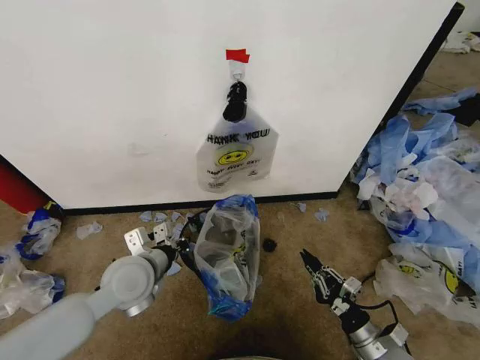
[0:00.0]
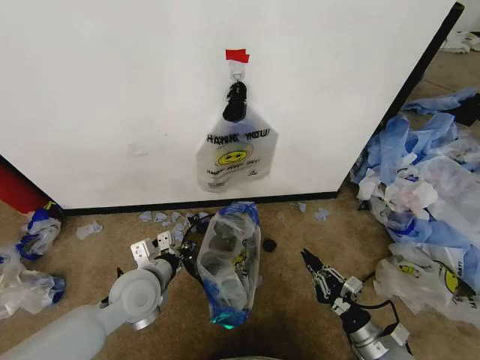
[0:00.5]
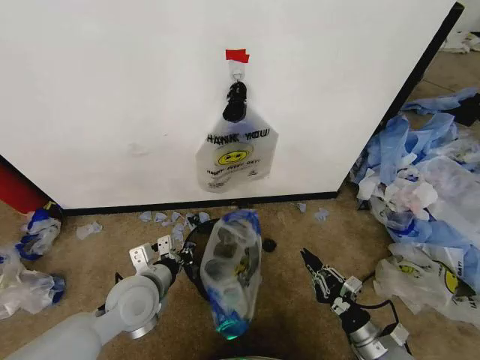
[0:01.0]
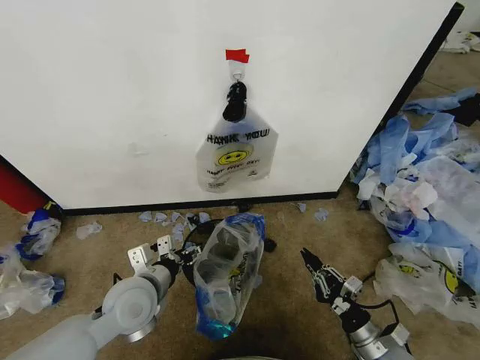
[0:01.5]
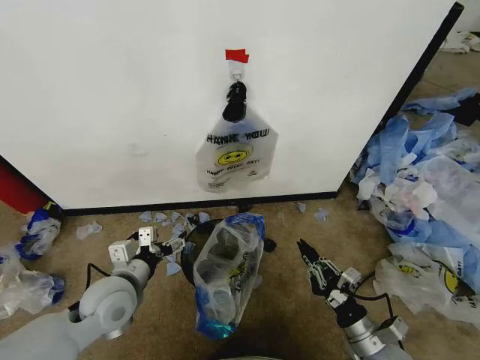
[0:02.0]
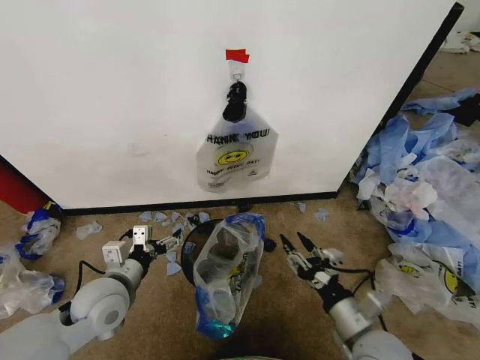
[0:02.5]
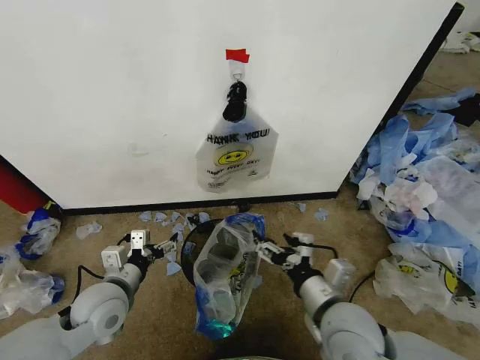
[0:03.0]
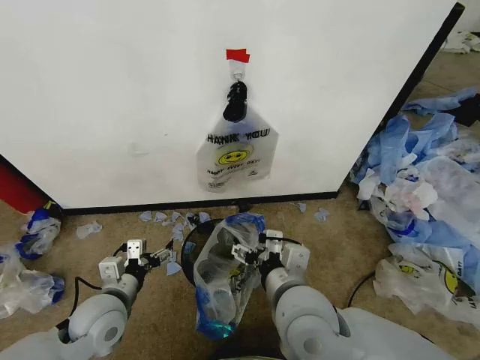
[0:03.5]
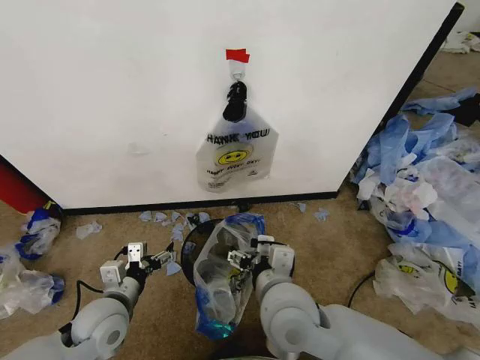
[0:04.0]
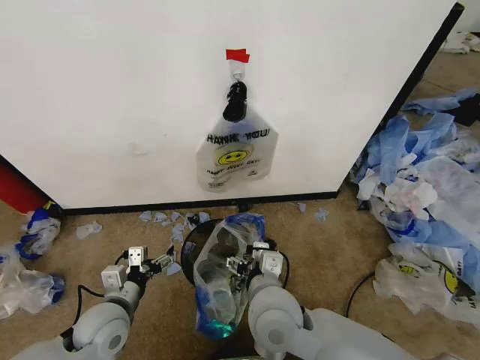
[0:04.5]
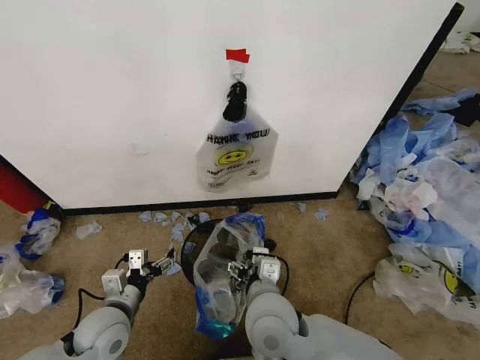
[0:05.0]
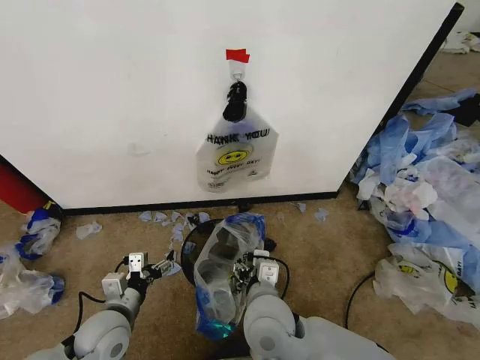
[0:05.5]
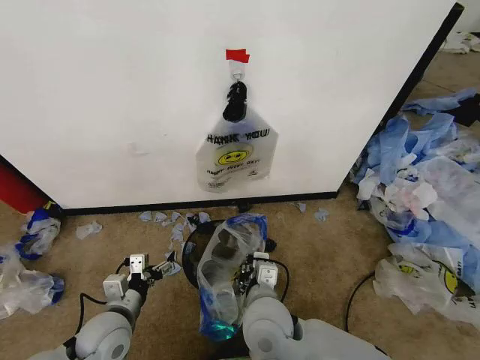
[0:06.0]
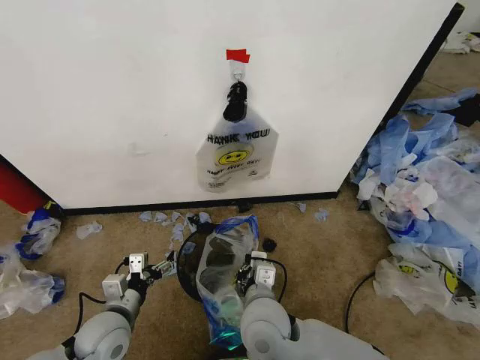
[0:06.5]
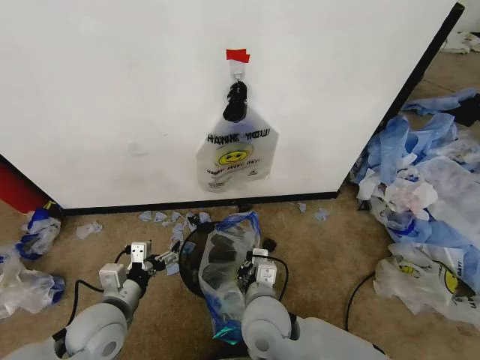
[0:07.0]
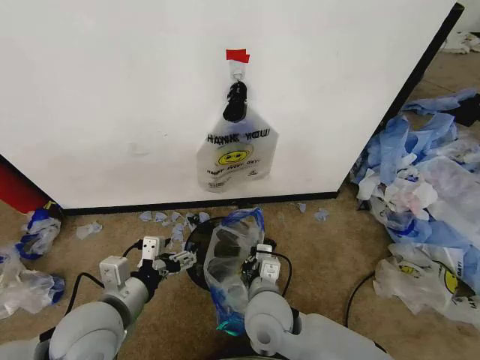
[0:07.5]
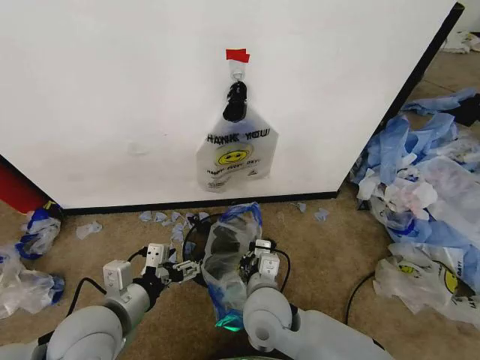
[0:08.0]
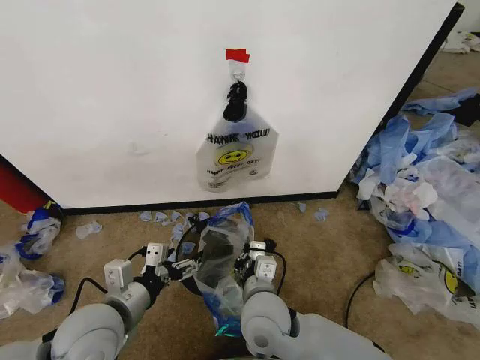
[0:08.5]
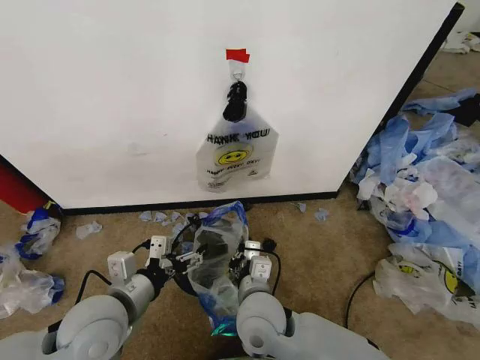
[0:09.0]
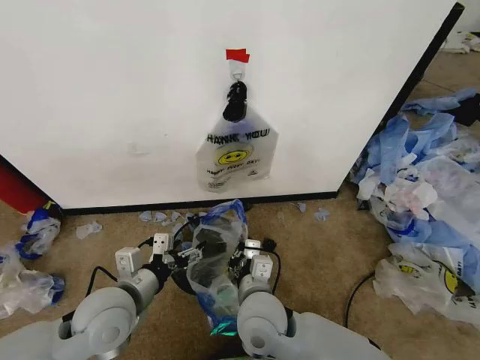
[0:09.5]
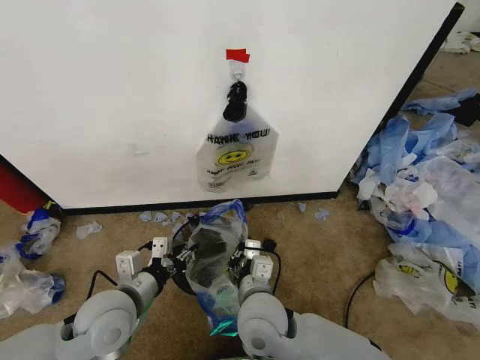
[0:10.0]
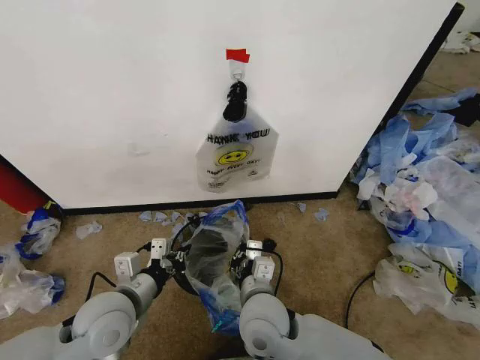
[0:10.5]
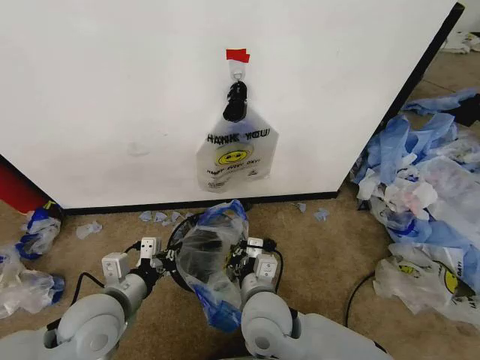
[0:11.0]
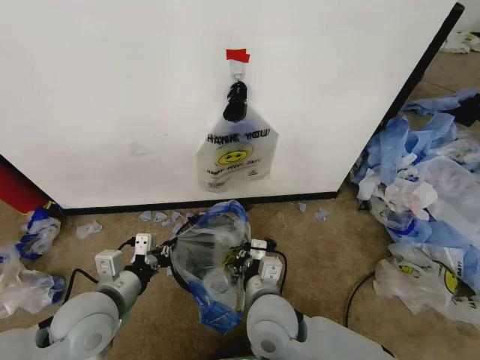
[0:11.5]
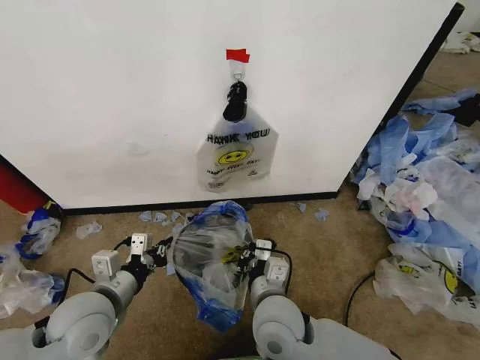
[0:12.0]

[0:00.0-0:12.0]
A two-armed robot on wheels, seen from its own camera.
Task of the whole recording: Pick up the garbage bag from the wall and place it over the trash bin.
0:00.0 to 0:02.0: The left gripper moves some 5 cm, and opens up.
0:02.0 to 0:04.0: The left gripper changes place by approximately 5 cm. The right gripper goes some 25 cm to the left and upward, and opens.
0:04.0 to 0:06.0: The right gripper travels downward by roughly 5 cm, and closes its fingers.
0:06.0 to 0:08.0: The left gripper is displaced upward by approximately 15 cm.
0:08.0 to 0:10.0: The left gripper shifts by some 5 cm, and closes its fingers.
0:10.0 to 0:12.0: The left gripper closes up.

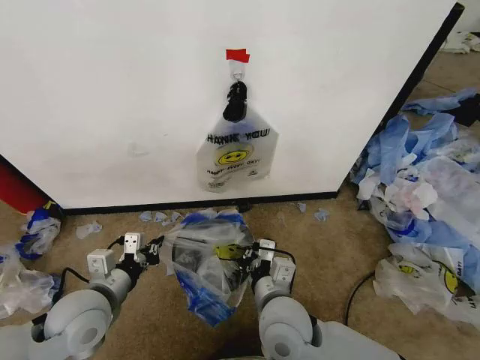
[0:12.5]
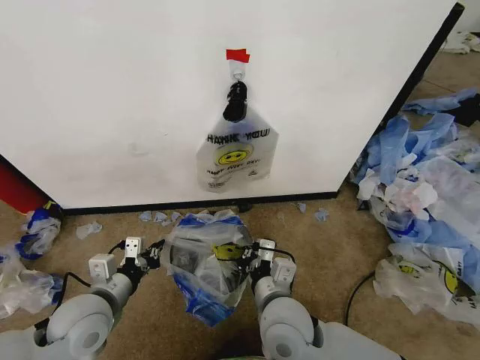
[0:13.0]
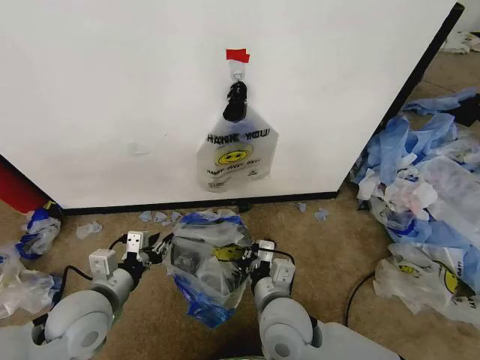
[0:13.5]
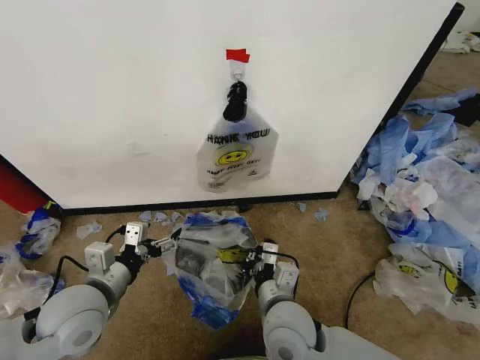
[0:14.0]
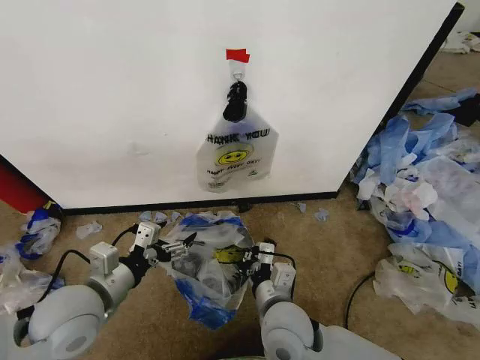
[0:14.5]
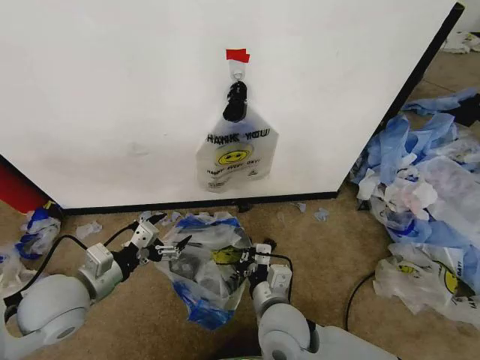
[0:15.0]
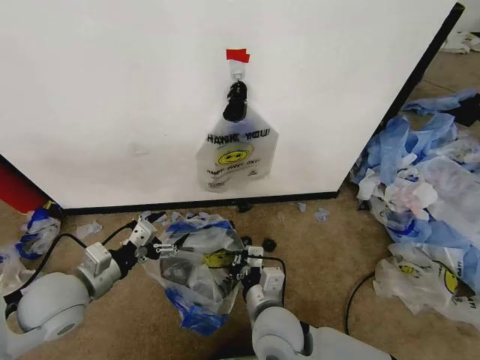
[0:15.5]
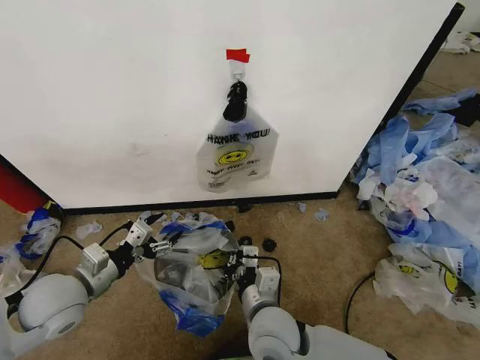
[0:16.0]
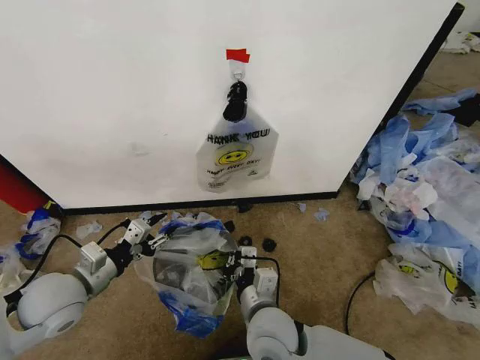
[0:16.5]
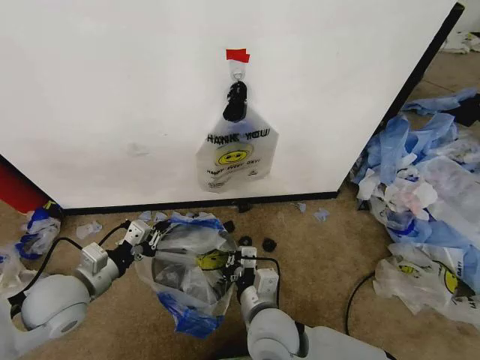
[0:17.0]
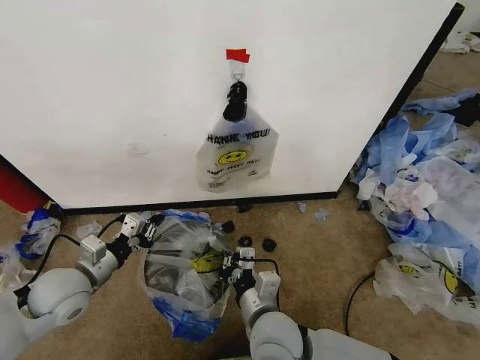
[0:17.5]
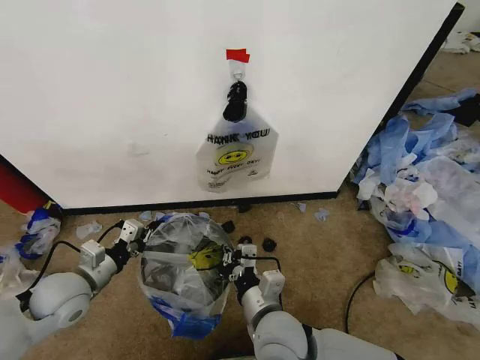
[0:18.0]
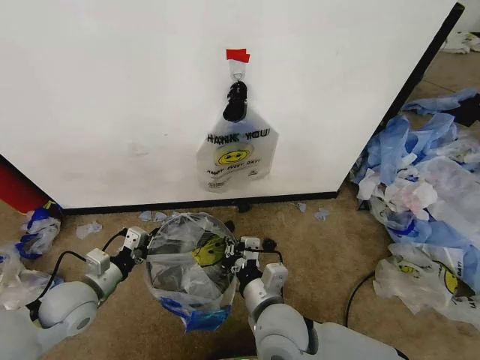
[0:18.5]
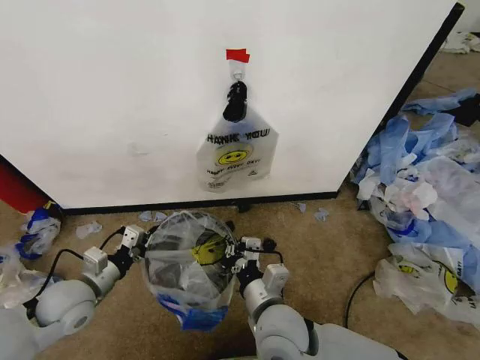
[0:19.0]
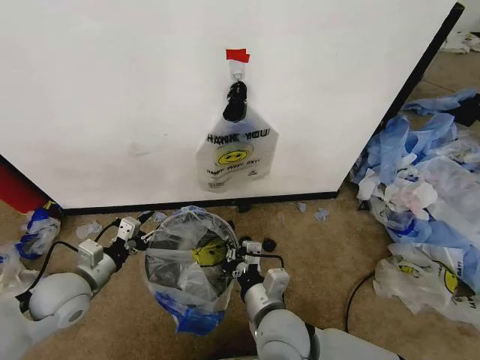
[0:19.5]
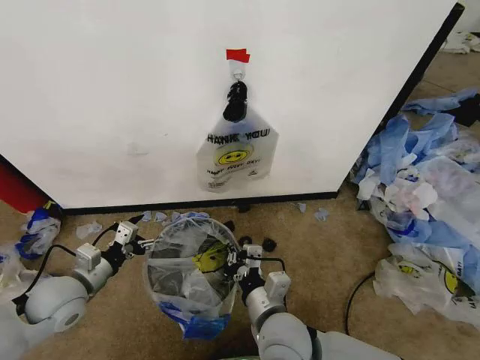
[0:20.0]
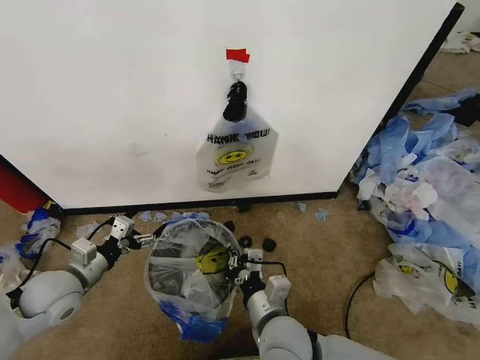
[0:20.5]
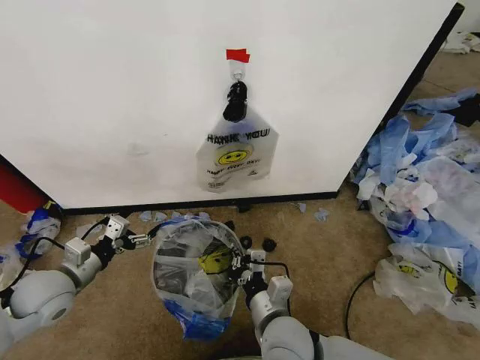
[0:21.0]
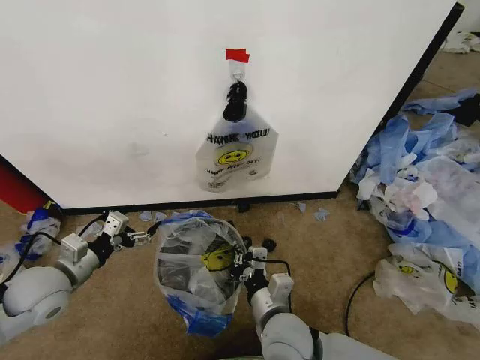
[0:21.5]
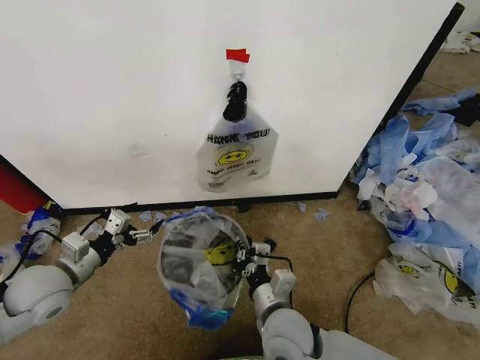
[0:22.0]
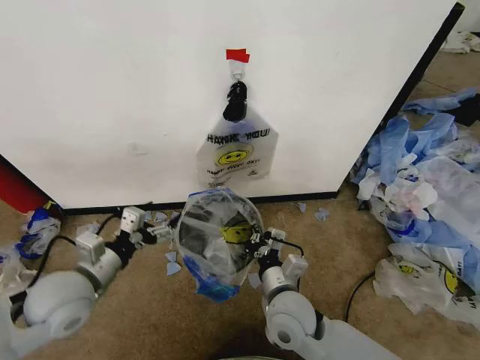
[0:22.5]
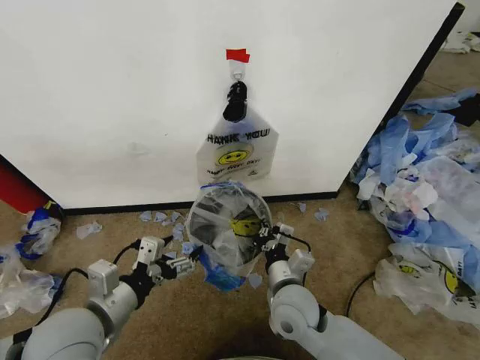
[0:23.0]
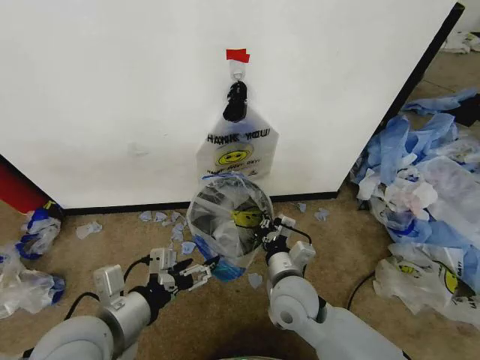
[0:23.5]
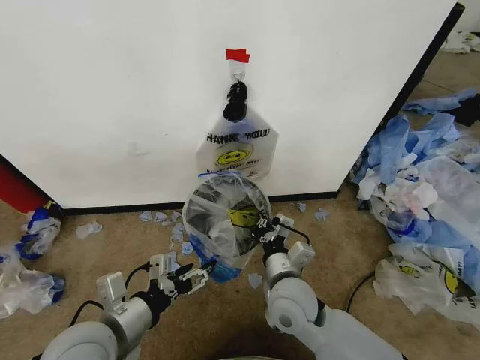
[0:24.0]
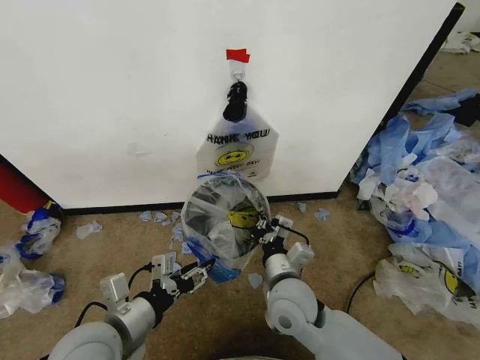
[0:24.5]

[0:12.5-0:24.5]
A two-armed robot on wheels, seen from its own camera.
Task of the whole recording: Pick up the garbage bag from the wall and place it over the trash bin.
0:12.5 to 0:14.5: The left gripper opens.
0:14.5 to 0:16.5: The left gripper moves to the left, approximately 5 cm, and closes up.
0:16.5 to 0:18.5: The left gripper goes some 5 cm downward, and closes.
0:18.5 to 0:20.5: The left gripper opens its fingers.
0:20.5 to 0:22.5: The left gripper shifts some 10 cm to the right and upward; the right gripper shifts by roughly 5 cm.
0:22.5 to 0:24.5: The left gripper is displaced backward and to the right by approximately 10 cm, and closes.

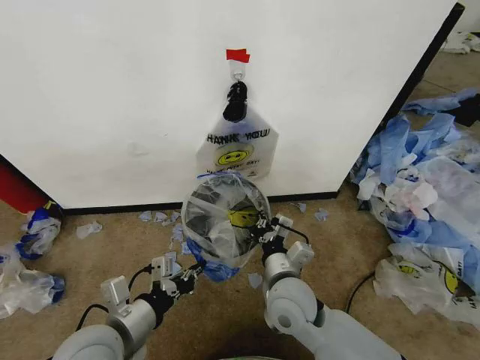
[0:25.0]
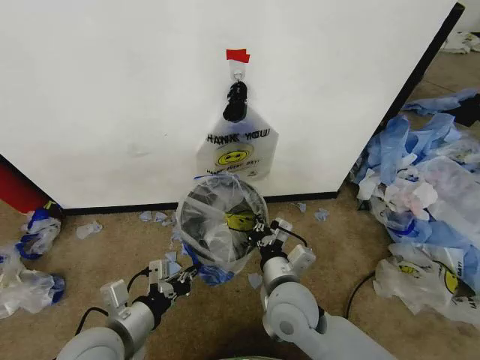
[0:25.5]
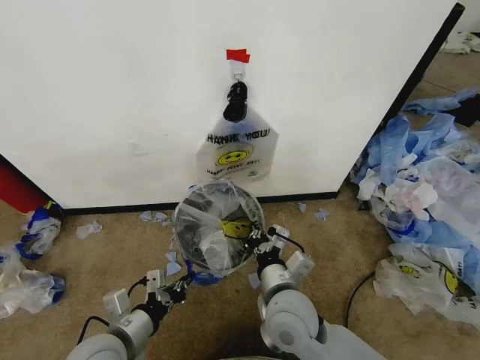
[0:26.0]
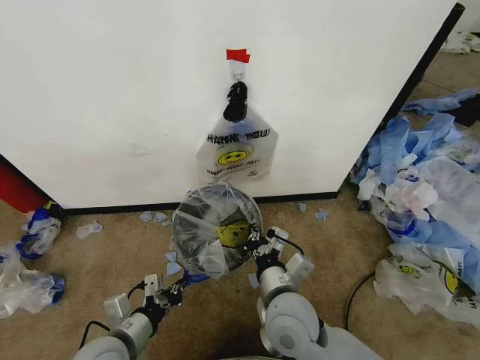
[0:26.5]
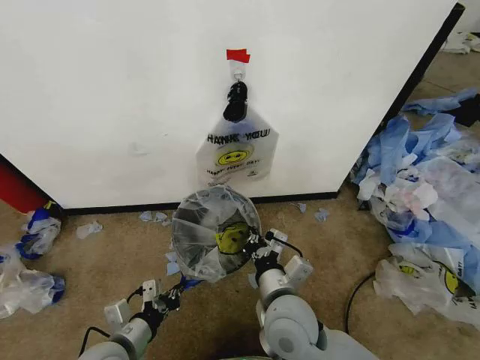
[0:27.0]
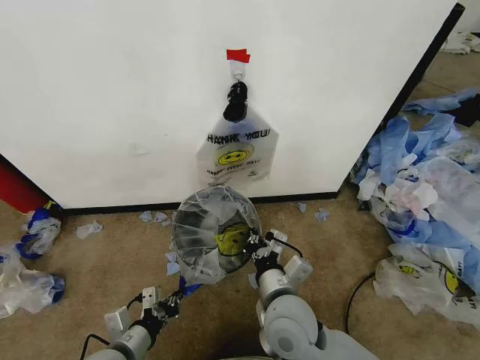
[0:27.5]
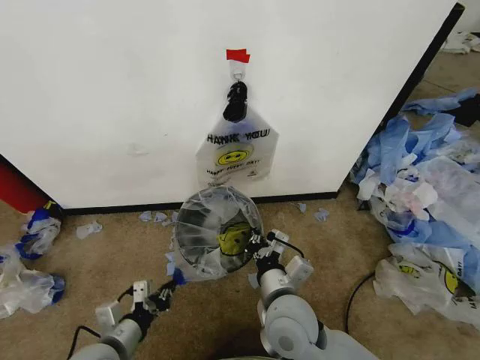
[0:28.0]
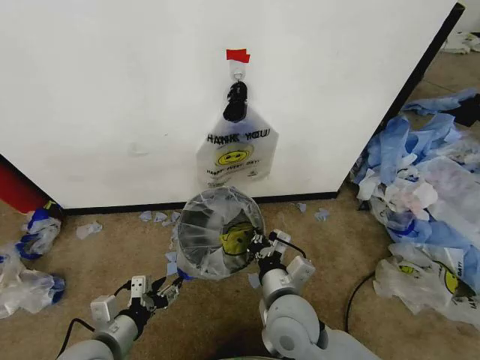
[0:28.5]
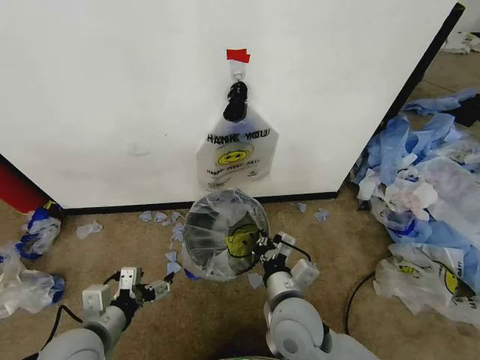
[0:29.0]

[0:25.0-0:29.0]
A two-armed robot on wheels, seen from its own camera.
Task of the whole recording: Pick up the garbage bag from the wall and place it over the trash bin.
0:25.0 to 0:27.0: The left gripper shifts approximately 10 cm downward.
0:27.0 to 0:29.0: The left gripper travels upward by about 5 cm, and opens.
